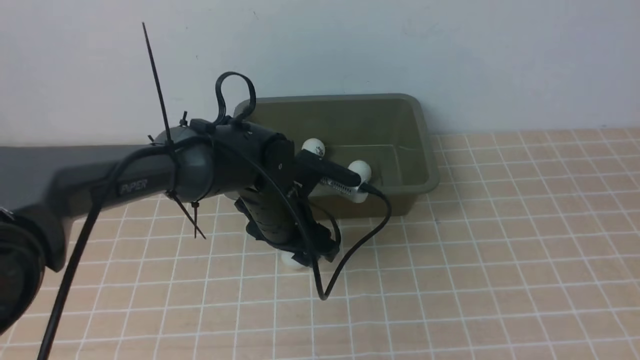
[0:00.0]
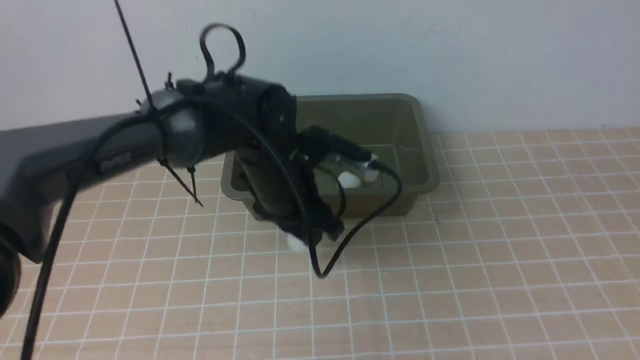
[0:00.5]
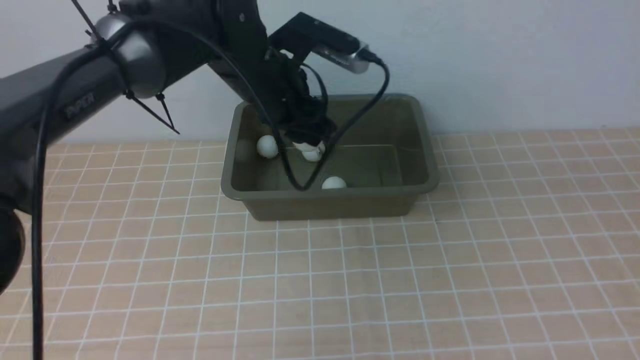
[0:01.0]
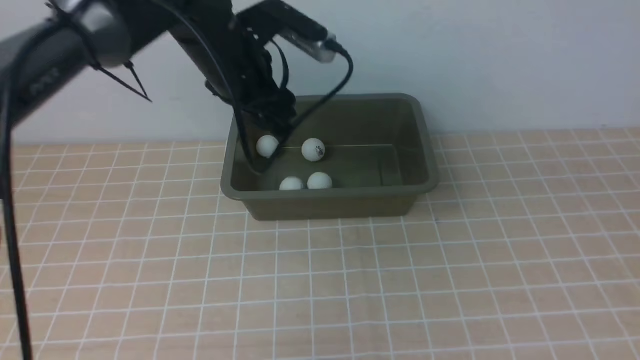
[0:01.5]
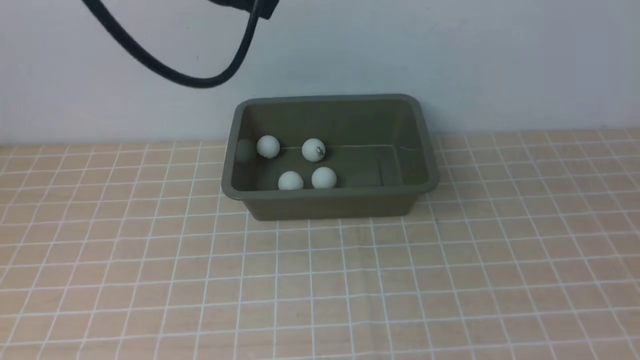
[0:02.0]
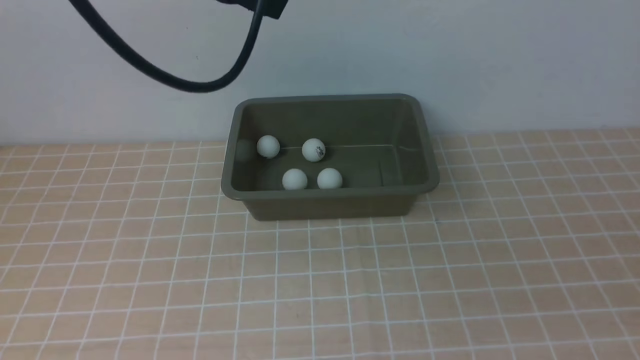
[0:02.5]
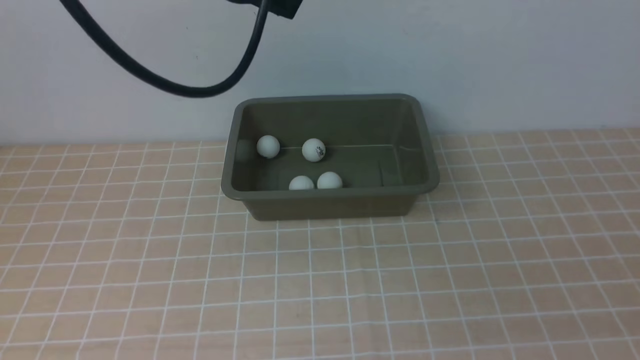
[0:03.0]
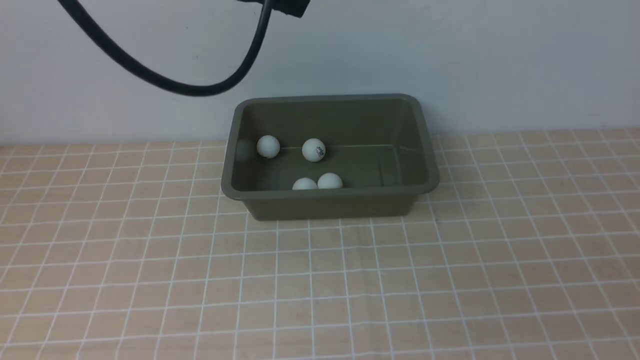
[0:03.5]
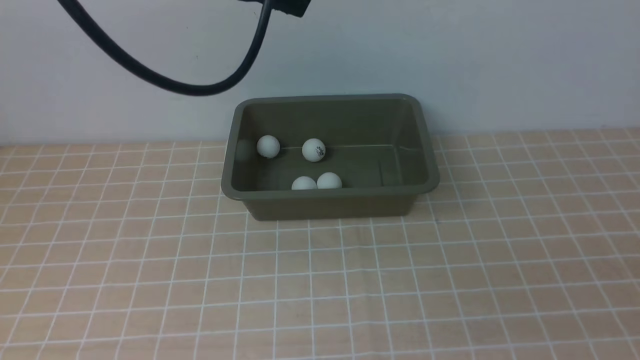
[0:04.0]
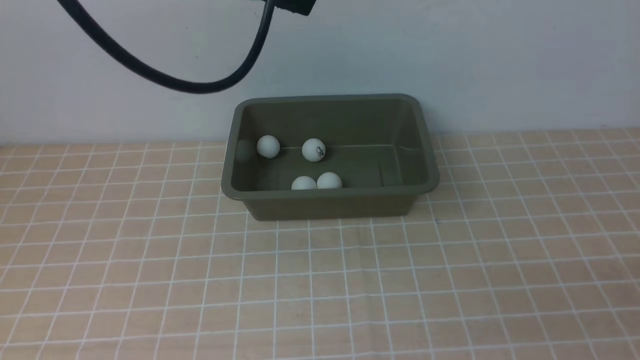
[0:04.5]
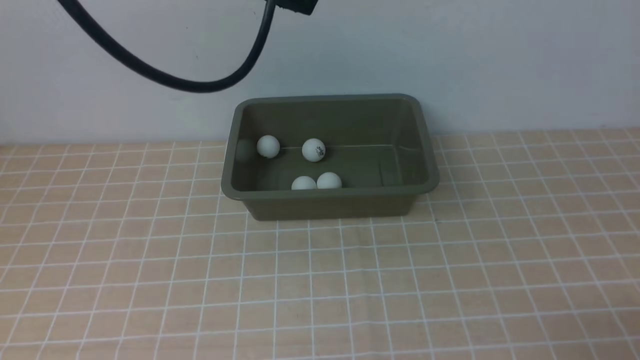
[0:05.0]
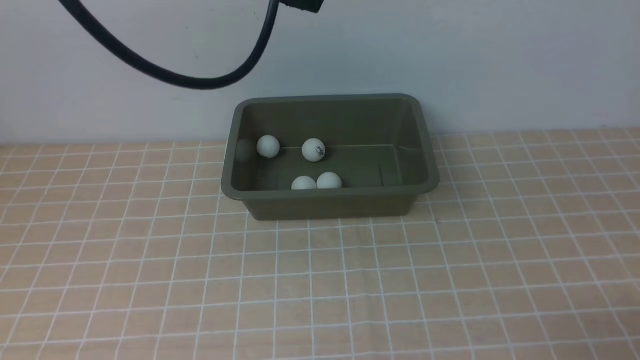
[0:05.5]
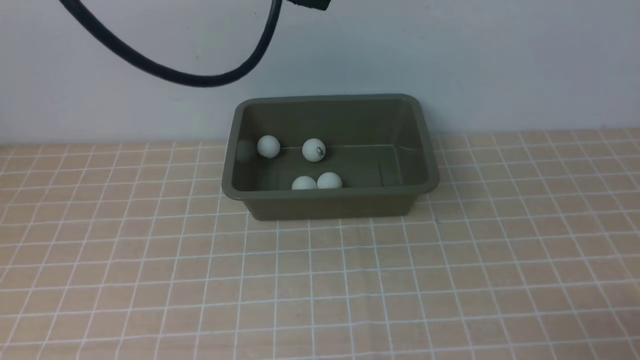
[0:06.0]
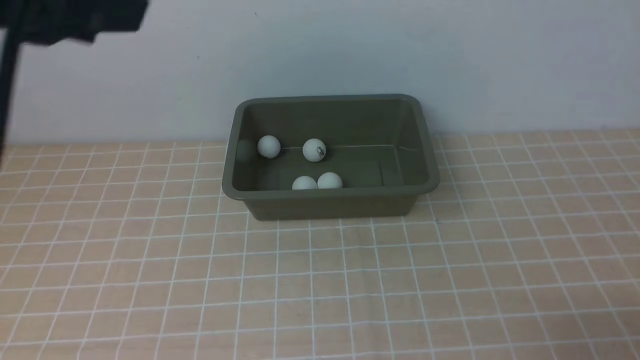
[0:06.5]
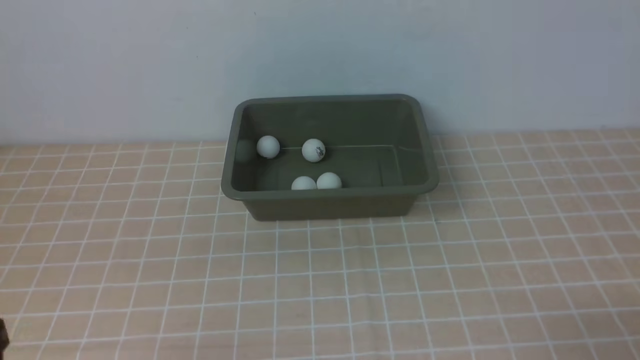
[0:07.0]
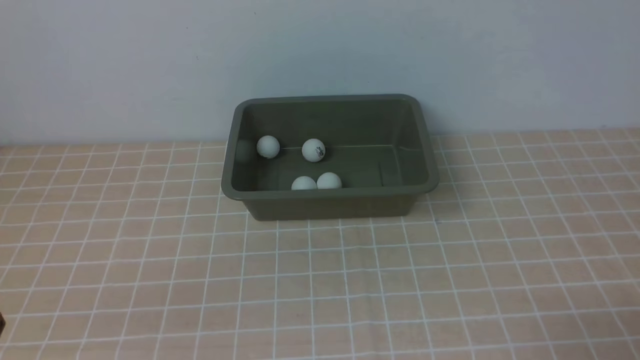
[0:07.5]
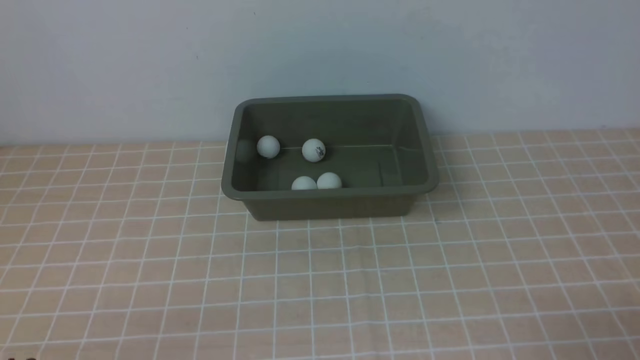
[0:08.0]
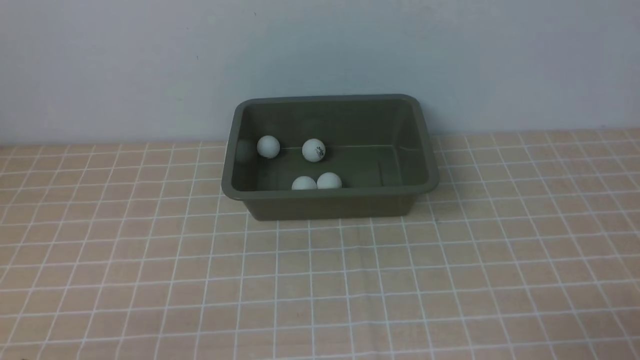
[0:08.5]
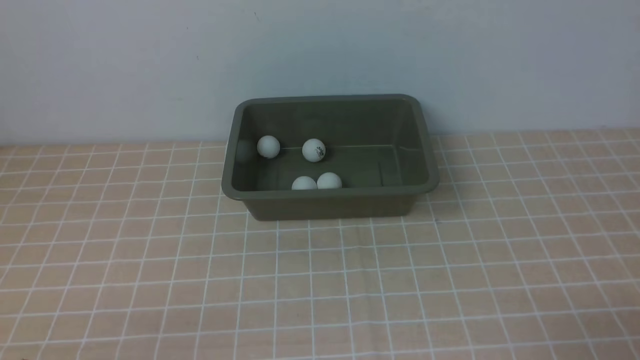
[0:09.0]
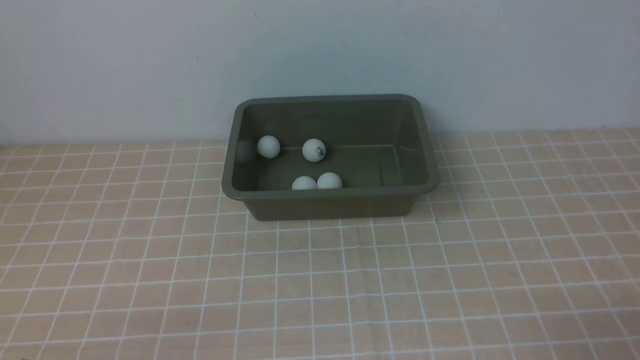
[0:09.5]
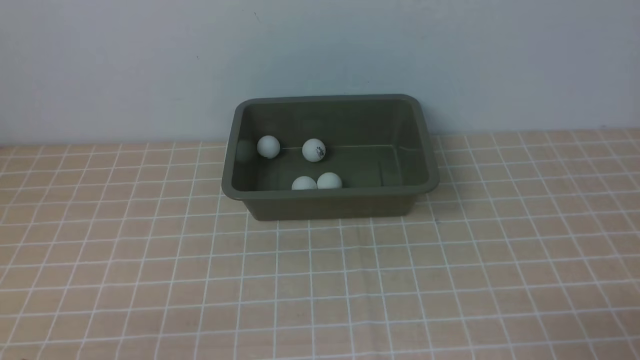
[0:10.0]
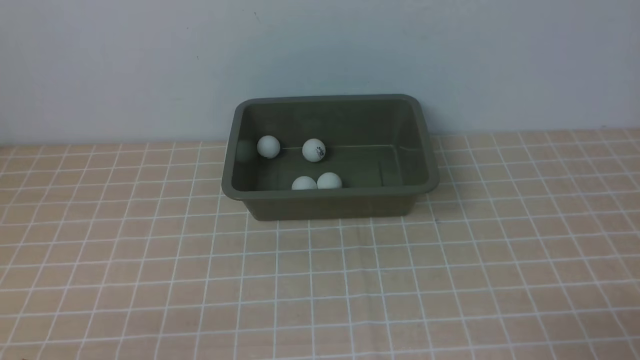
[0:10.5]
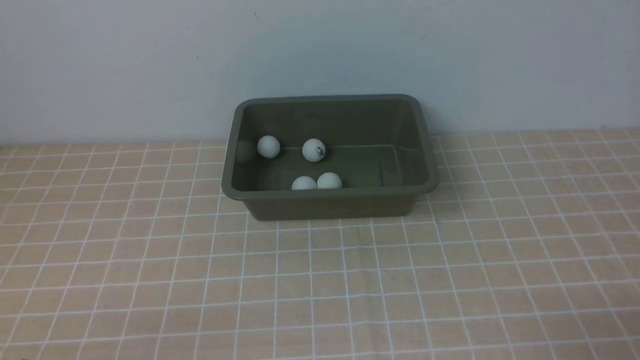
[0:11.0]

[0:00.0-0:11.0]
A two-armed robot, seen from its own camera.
Step, 0:01.0 to 0:01.5: use the left arm to put the table tennis ball into the box.
0:00.0 to 0:02.0: The right gripper travels backward by roughly 5 cm, while the left gripper is displaced upward by some 30 cm, and closes up.
0:02.0 to 0:03.5: The right gripper travels downward by about 20 cm.
0:03.5 to 0:05.5: The right gripper is displaced downward by about 5 cm.
0:05.5 to 0:07.5: The left gripper shifts roughly 40 cm backward, downward and to the left.
0:09.0 to 0:11.0: Neither gripper changes place.

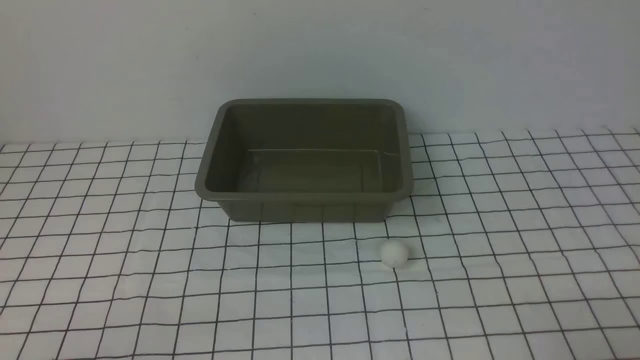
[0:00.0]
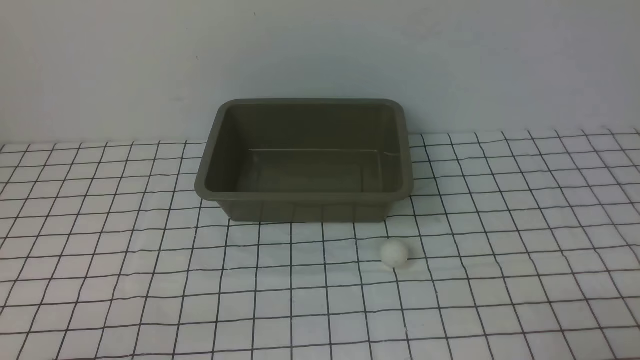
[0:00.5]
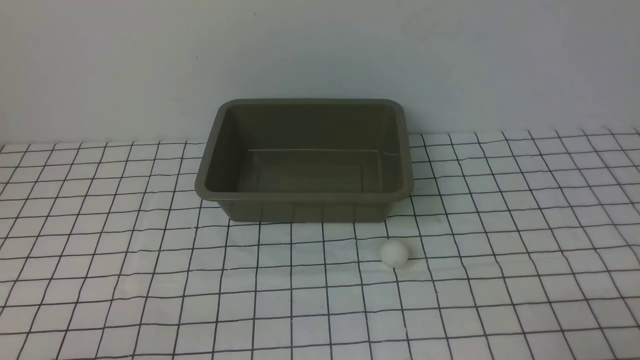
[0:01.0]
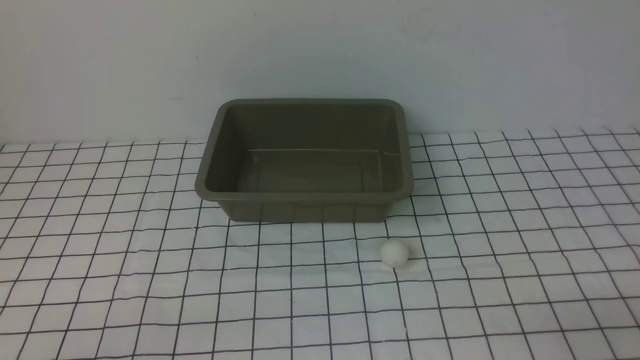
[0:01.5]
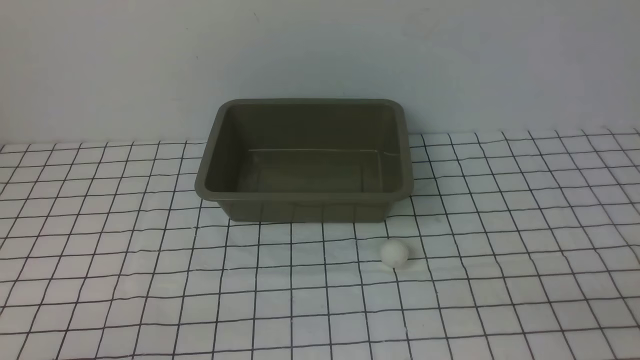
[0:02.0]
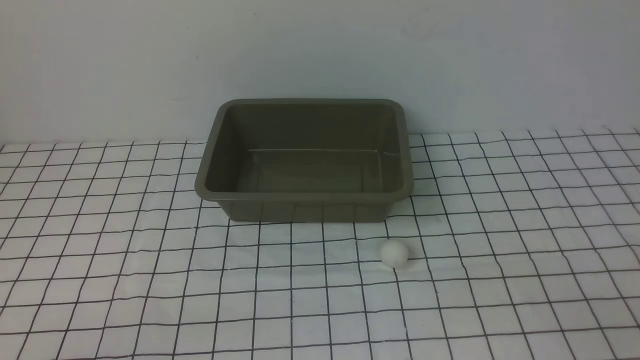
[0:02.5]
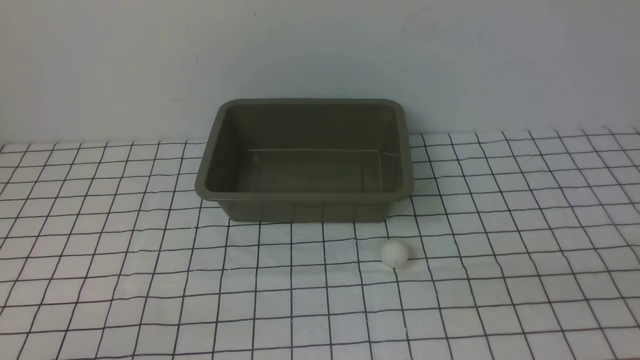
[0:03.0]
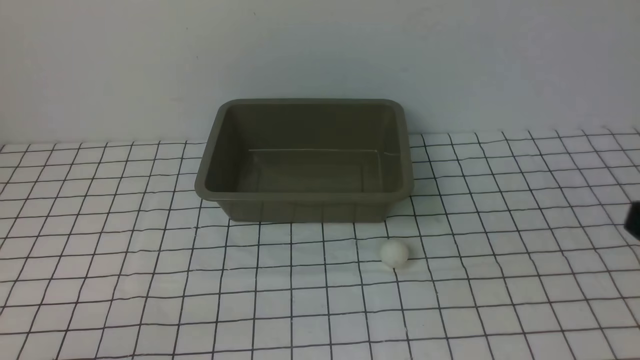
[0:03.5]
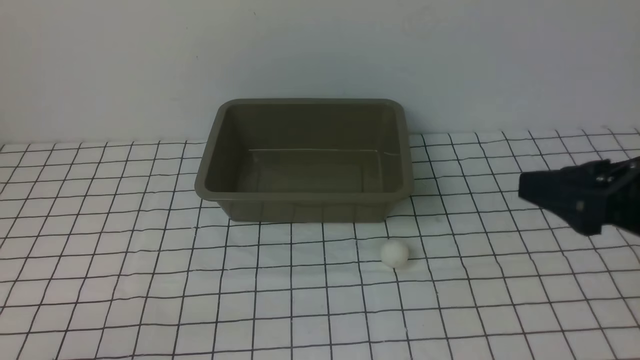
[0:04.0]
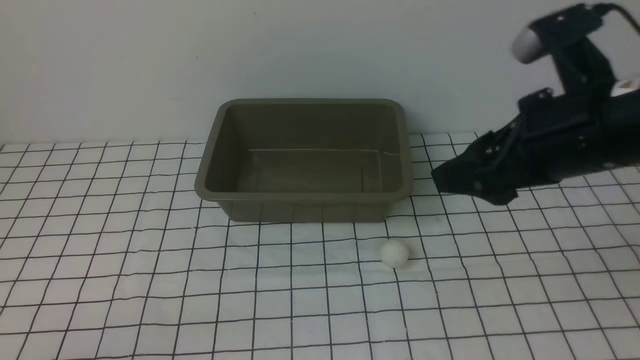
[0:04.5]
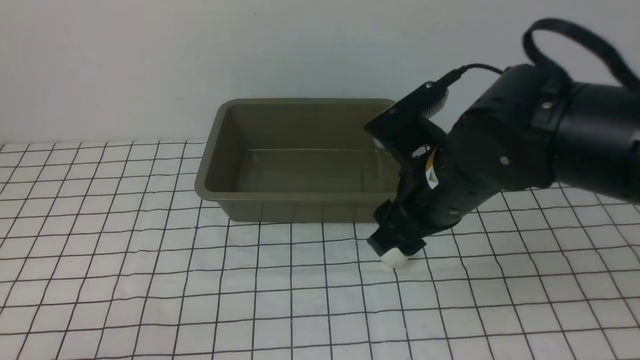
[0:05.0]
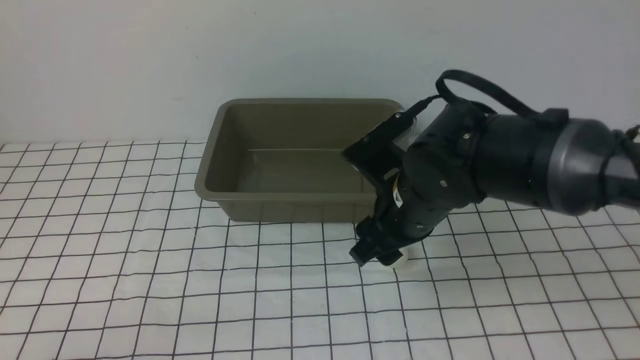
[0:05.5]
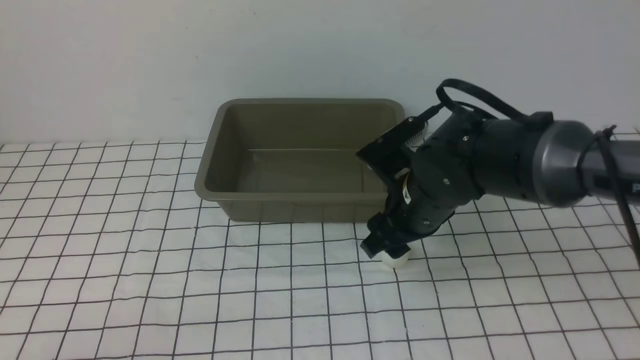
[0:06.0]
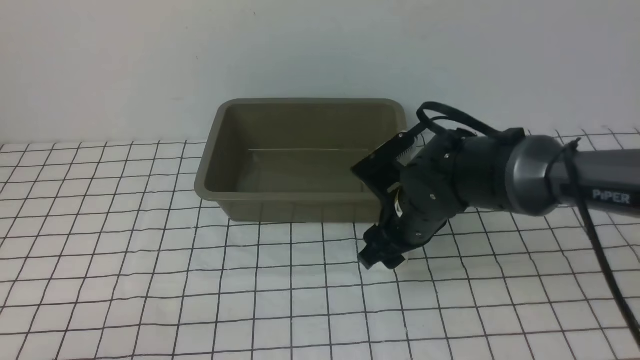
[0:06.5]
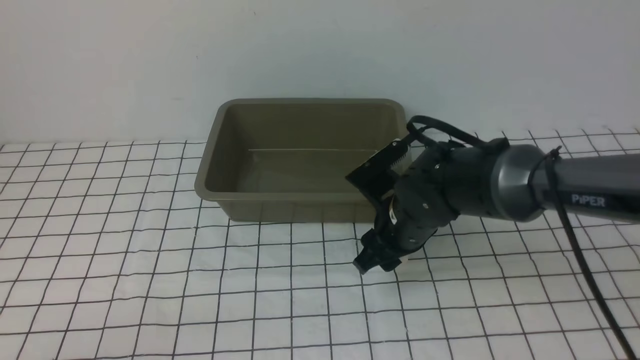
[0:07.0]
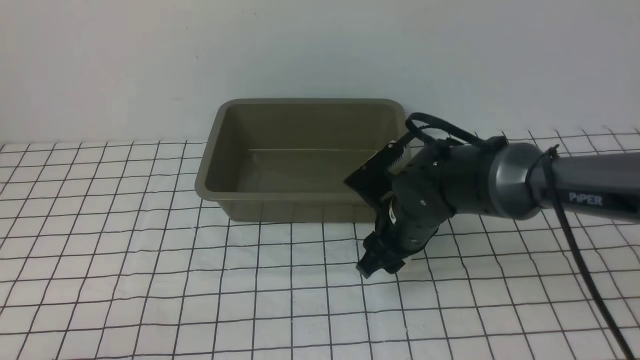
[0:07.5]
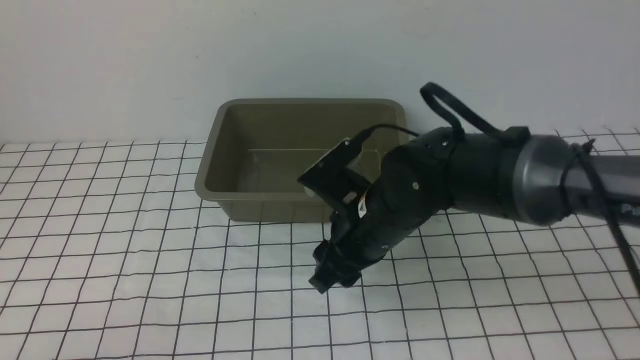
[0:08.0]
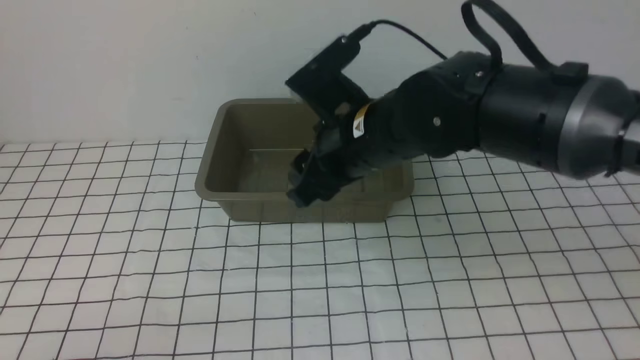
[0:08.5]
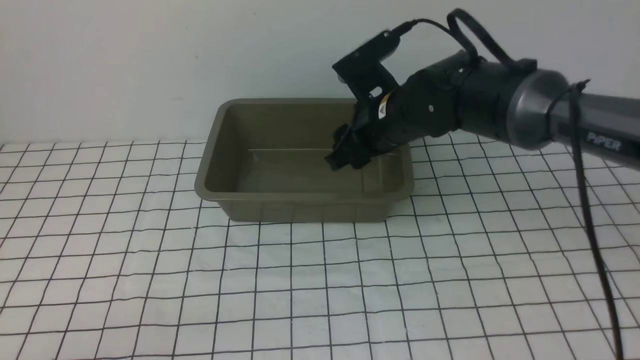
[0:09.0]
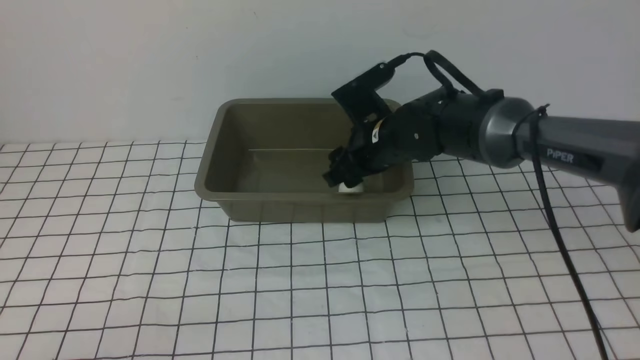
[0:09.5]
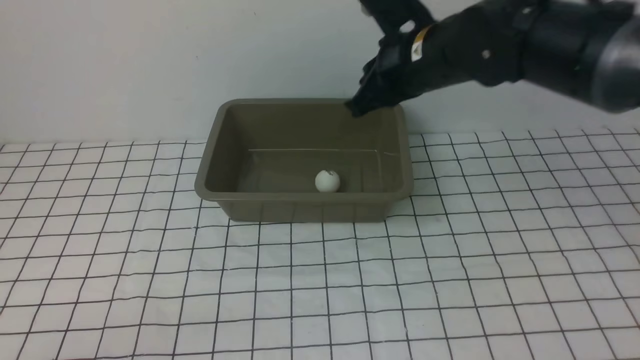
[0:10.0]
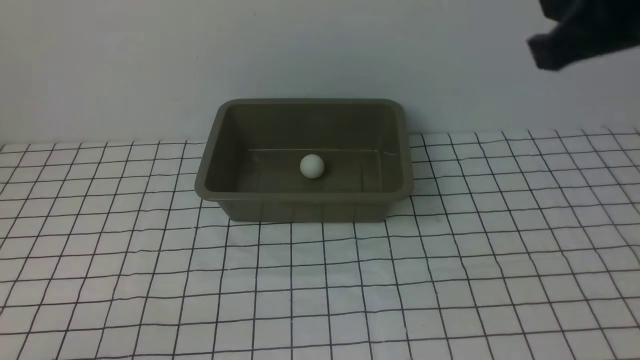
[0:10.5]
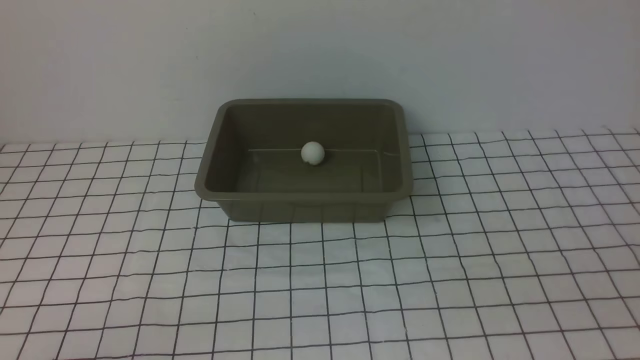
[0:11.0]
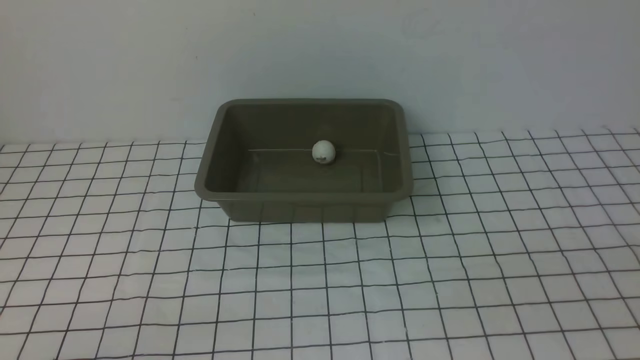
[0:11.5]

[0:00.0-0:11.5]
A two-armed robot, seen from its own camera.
Step, 0:00.0 to 0:08.0: use the right arm to clamp the table tennis ball closest to it.
Step, 0:08.5 to 0:09.5: use the right arm to put the table tennis ball into the box.
0:02.0 to 0:04.0: The right gripper travels upward and forward by roughly 15 cm.
0:04.0 to 0:06.0: The right gripper goes roughly 25 cm to the left, forward and downward.
0:06.0 to 0:07.5: The grippers make only small movements.
0:07.5 to 0:09.5: The right gripper moves forward, roughly 10 cm.
0:09.5 to 0:11.5: The right gripper is displaced backward and to the right by approximately 50 cm, and closes its fingers.
